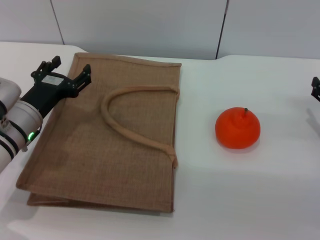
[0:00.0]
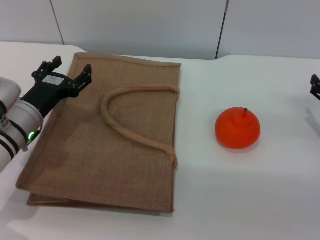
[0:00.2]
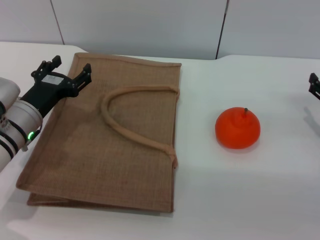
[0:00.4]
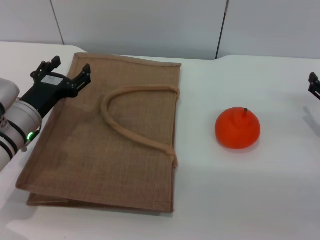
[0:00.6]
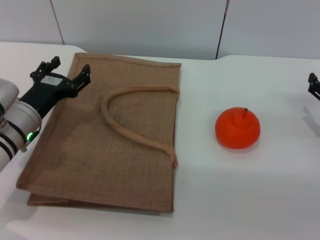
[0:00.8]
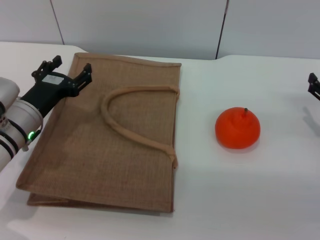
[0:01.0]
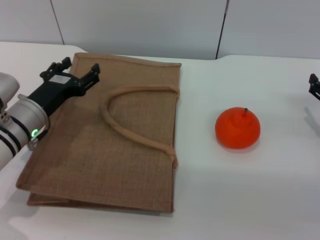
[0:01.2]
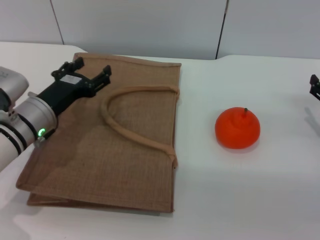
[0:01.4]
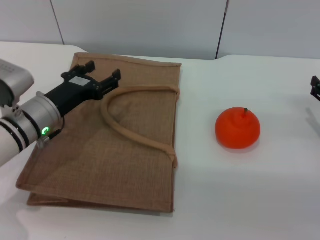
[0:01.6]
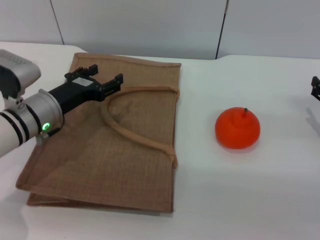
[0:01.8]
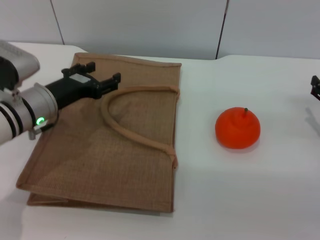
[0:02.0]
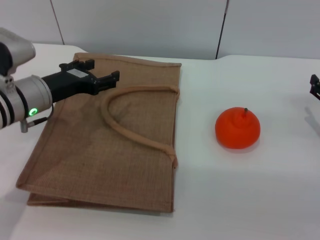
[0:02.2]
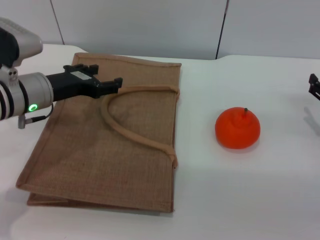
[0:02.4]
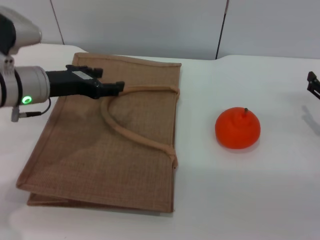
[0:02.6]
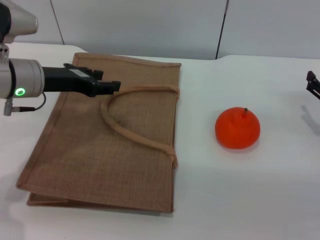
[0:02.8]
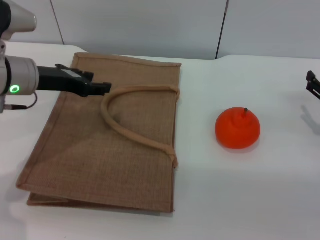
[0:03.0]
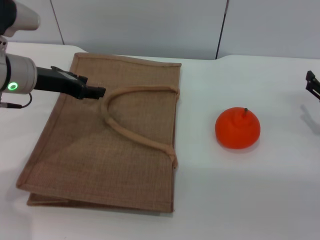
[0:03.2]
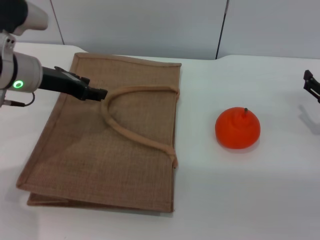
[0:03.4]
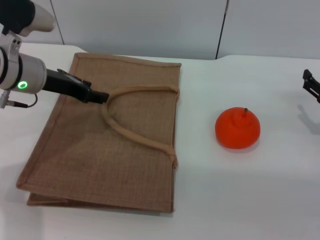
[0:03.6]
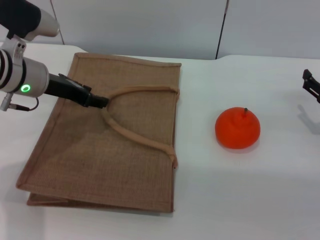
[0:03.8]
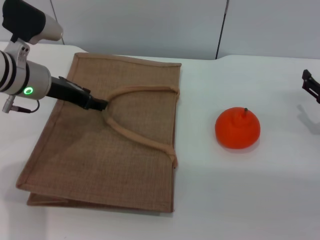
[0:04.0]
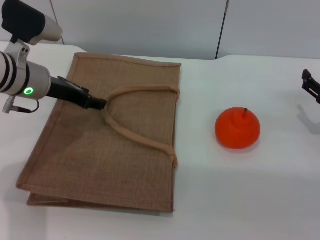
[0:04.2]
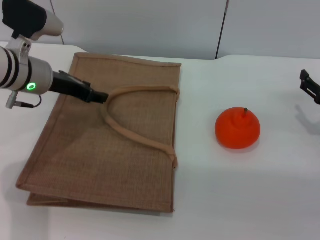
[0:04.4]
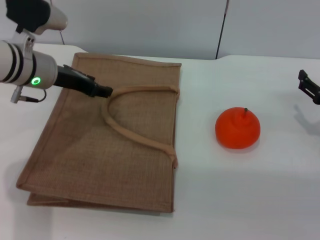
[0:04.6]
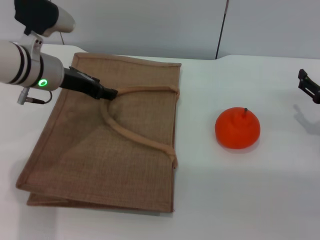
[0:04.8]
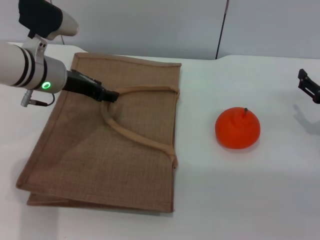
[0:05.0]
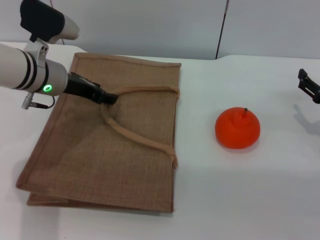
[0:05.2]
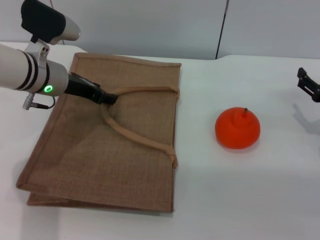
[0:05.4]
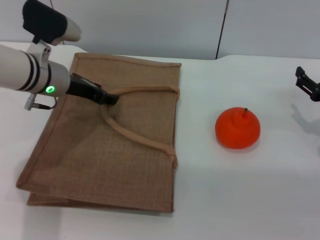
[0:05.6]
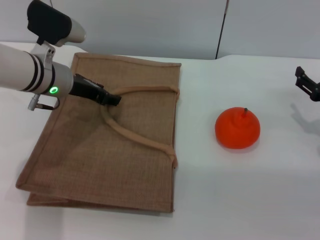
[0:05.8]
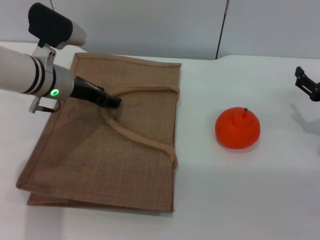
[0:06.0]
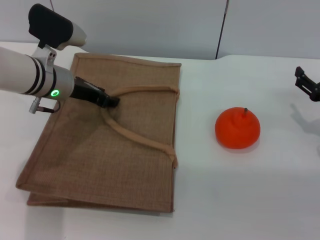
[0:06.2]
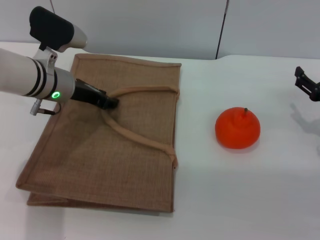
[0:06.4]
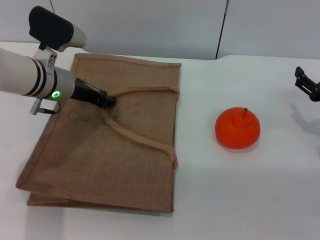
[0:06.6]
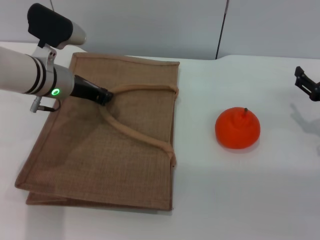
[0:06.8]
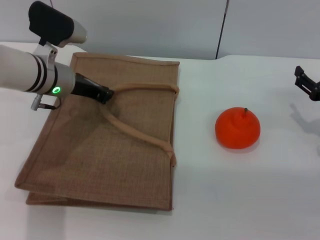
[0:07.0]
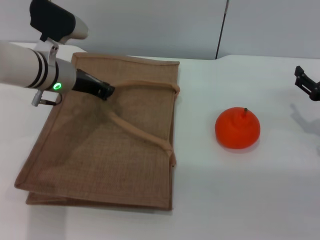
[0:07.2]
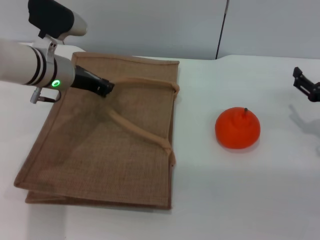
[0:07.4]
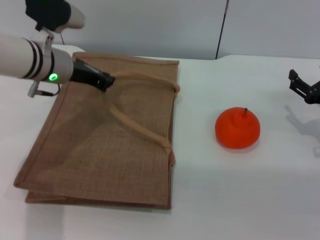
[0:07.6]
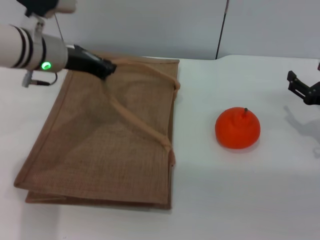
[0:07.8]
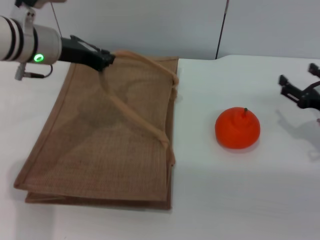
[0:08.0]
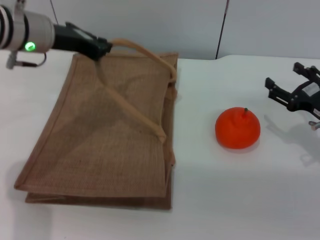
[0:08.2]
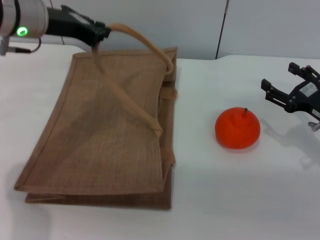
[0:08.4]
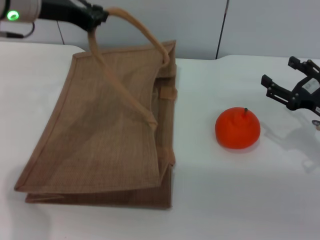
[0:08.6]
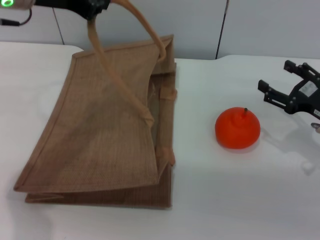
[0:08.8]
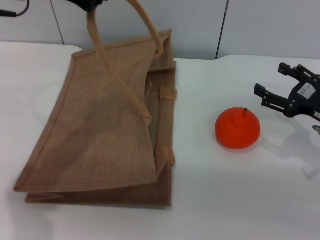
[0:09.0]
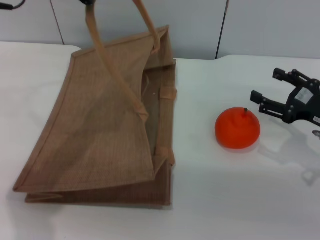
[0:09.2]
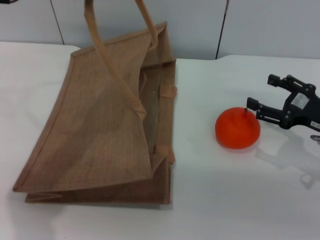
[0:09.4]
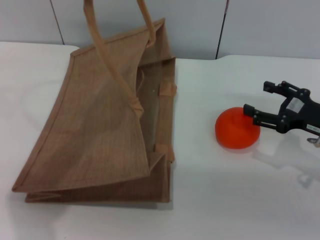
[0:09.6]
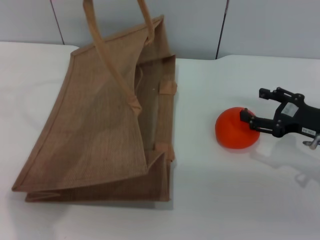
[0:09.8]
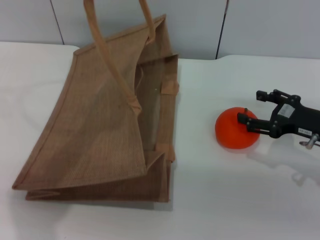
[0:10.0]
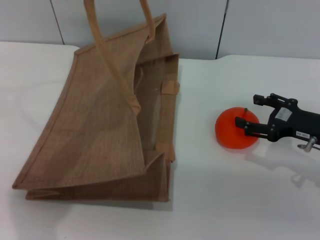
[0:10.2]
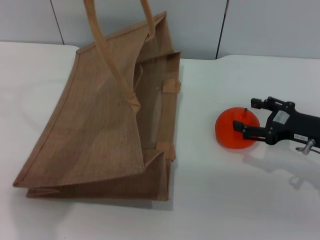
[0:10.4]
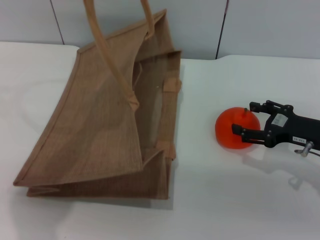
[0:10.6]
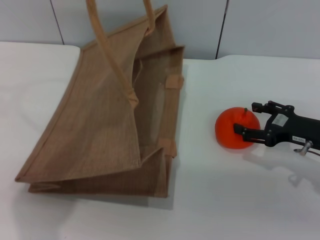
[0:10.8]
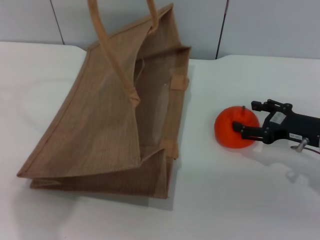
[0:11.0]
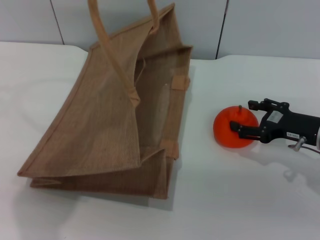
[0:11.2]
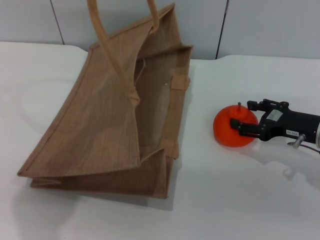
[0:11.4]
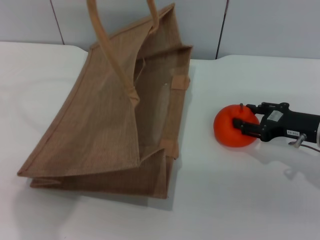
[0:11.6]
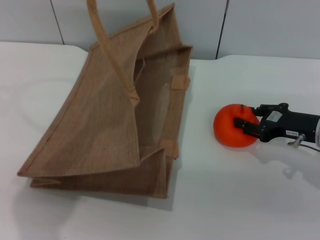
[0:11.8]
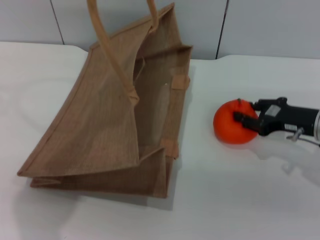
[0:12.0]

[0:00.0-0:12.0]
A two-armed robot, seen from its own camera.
Task of the whole recording: pick up the orange from the table and place it in the brown handbag.
Step, 0:00.0 to 0:07.6: Lift the woven bag with the left gripper to open it.
0:00.0 to 0:01.6: The grippers move only a little.
0:01.6 to 0:03.0: The left gripper heads upward, covering approximately 10 cm.
0:03.0 to 0:04.4: The grippers make only small movements.
0:04.4 to 0:06.0: The grippers make only small movements.
0:06.0 to 0:07.6: The left gripper closes up.
0:07.6 to 0:09.0: The left gripper heads upward, covering roughly 15 cm.
0:09.0 to 0:10.4: The grippers stay close to where they were, moving slightly.
0:10.4 to 0:12.0: The right gripper closes up.

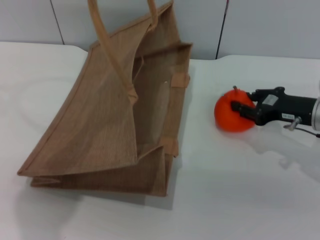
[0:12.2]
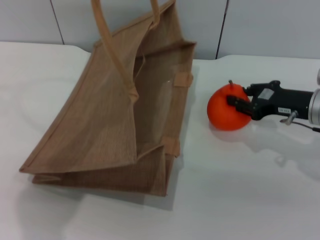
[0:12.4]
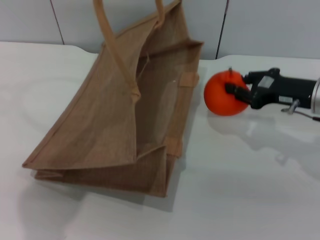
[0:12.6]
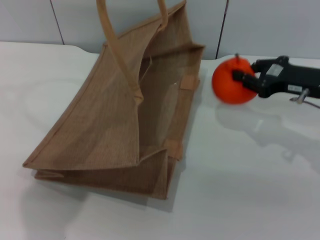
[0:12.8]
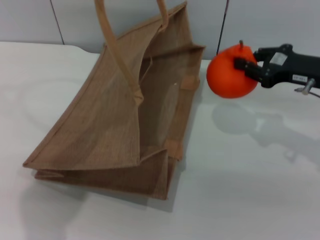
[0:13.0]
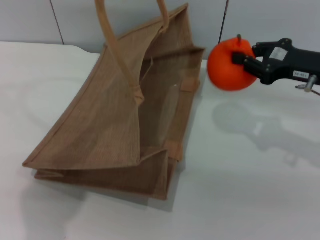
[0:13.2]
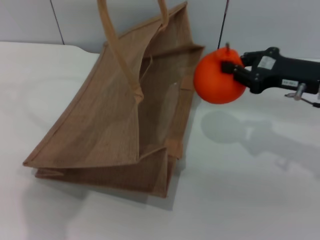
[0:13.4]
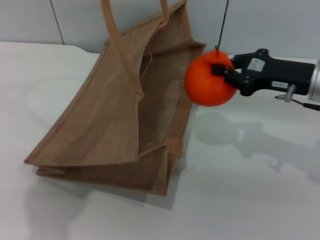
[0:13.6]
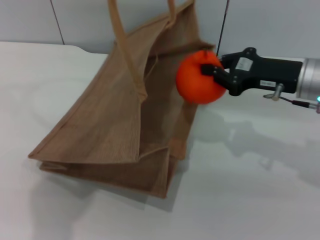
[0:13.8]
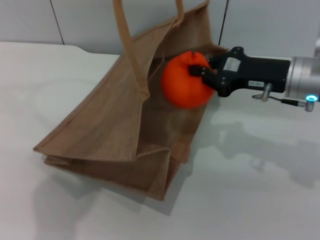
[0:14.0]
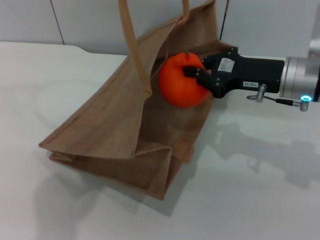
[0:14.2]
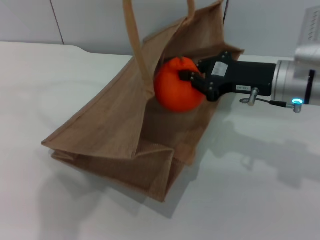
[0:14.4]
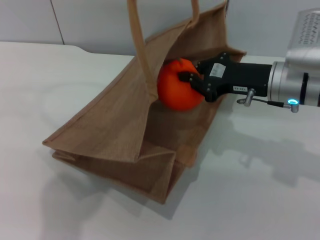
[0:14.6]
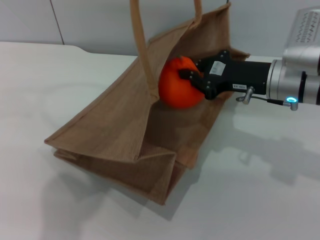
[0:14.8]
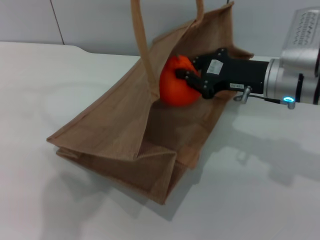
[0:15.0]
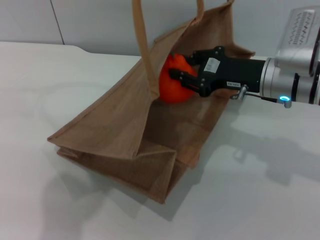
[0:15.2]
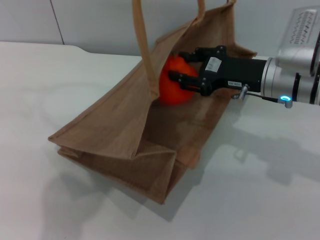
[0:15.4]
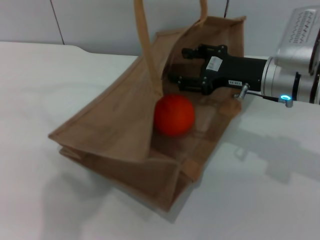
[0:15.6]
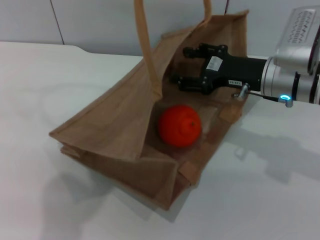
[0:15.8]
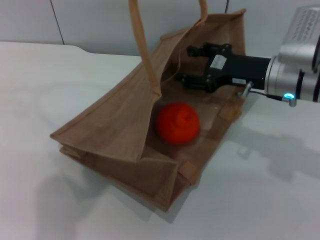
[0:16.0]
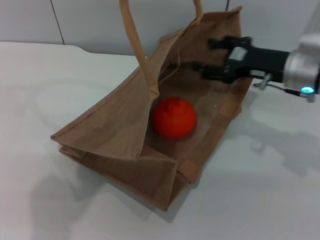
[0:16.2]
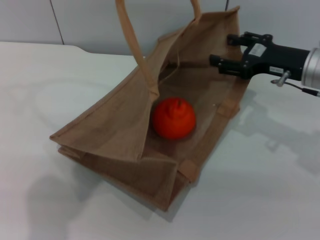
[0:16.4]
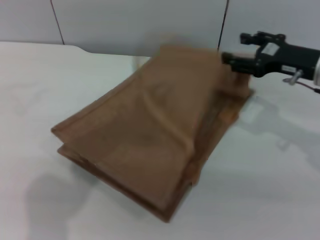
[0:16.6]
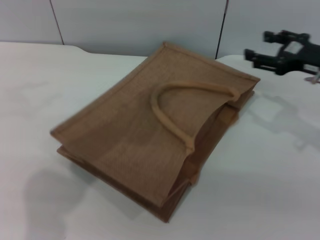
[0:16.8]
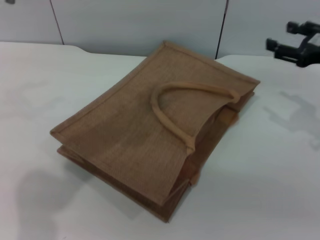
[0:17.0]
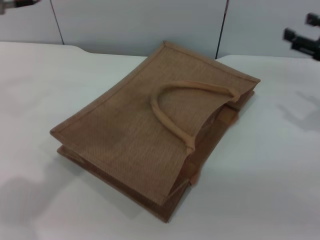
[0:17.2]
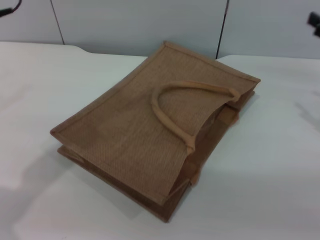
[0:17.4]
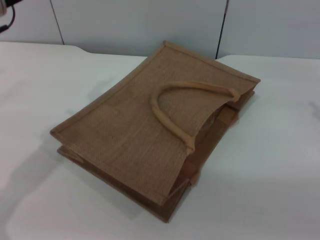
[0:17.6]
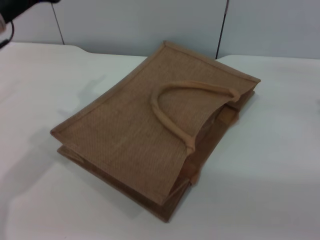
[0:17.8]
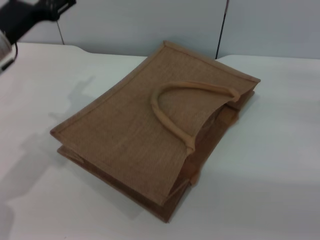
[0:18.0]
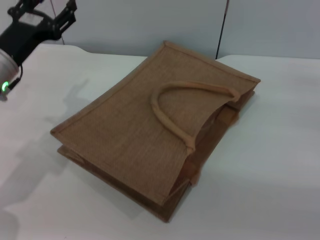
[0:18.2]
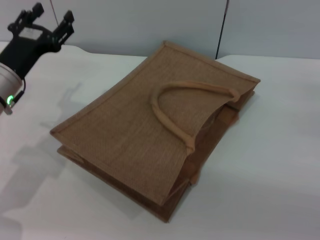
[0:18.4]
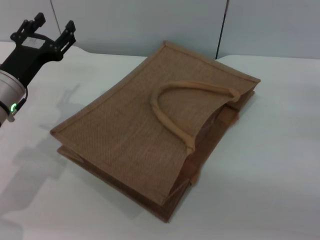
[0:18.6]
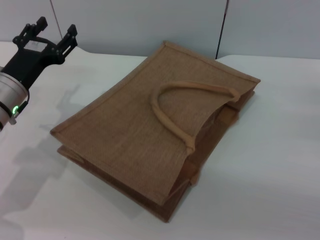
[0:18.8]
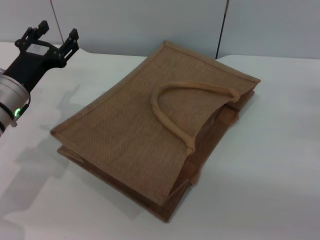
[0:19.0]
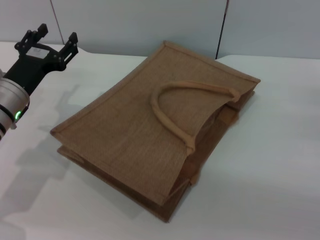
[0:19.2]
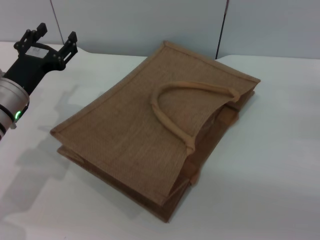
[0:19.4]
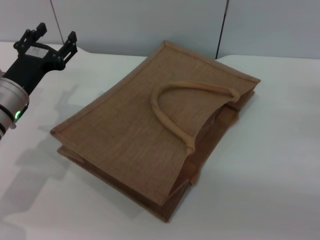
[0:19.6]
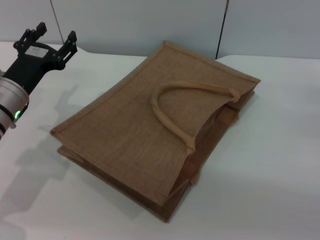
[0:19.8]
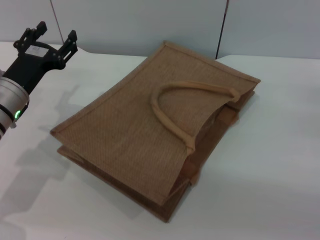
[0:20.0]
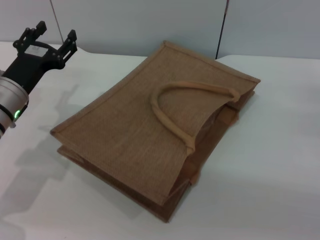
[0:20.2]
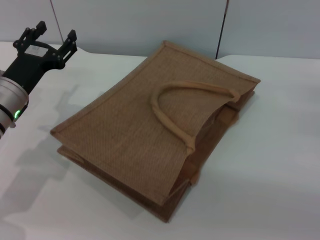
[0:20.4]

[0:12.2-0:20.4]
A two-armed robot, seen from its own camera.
Task of the whole recording: pick up the orange from the table and place it in the brown handbag.
Step, 0:13.2 to 0:16.6: Place the orange into the woven bag with the right gripper.
Step, 0:16.8 to 0:17.2: Lower the woven bag with the left gripper to close it.
0:12.2 to 0:13.8: The right gripper shifts about 5 cm upward, and closes its fingers.
0:13.8 to 0:15.4: The right gripper opens its fingers.
0:15.4 to 0:17.2: The left gripper goes roughly 10 cm downward and to the left, and opens its fingers. Meanwhile the right gripper moves to the right, about 15 cm, and opens.
0:17.2 to 0:18.8: The right gripper shifts some 10 cm downward and backward; the left gripper heads downward, covering roughly 20 cm.
0:18.8 to 0:20.4: Both grippers stay put.
